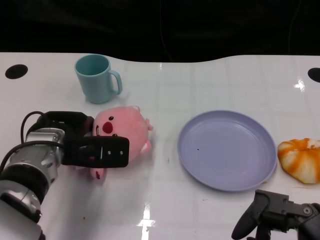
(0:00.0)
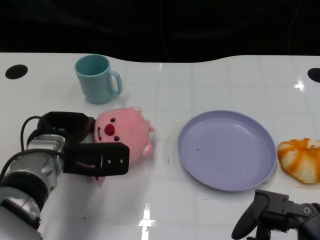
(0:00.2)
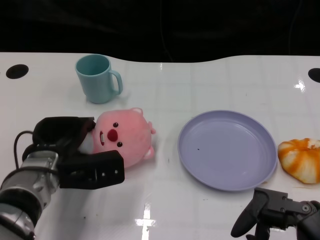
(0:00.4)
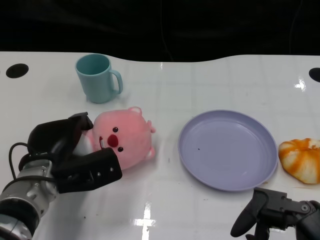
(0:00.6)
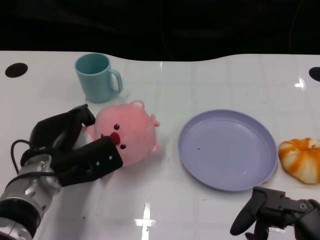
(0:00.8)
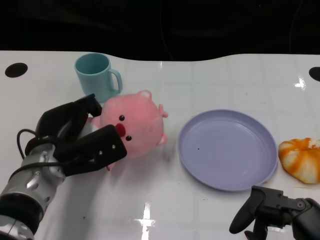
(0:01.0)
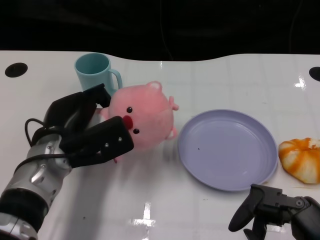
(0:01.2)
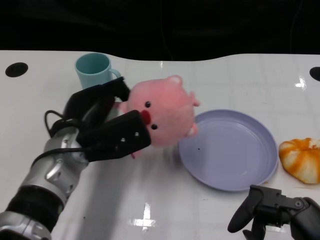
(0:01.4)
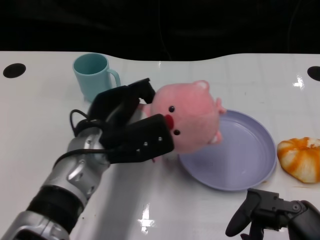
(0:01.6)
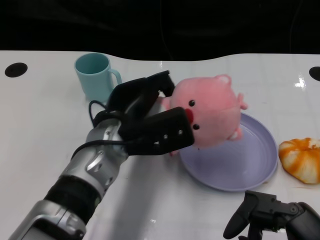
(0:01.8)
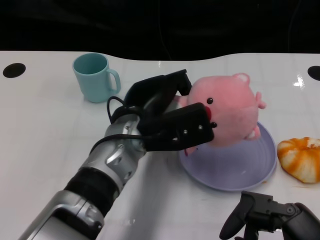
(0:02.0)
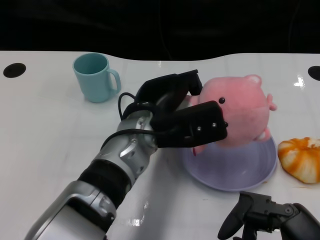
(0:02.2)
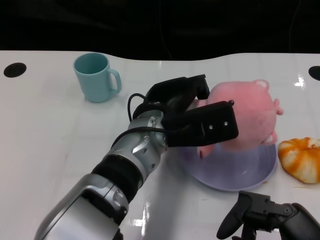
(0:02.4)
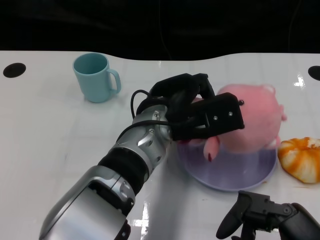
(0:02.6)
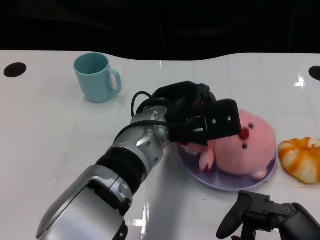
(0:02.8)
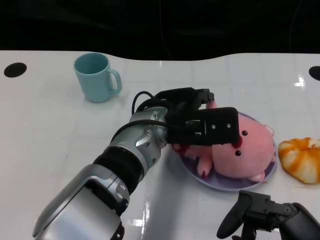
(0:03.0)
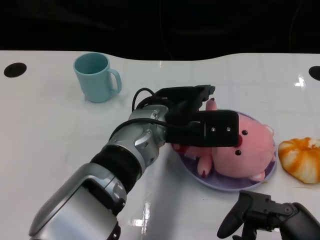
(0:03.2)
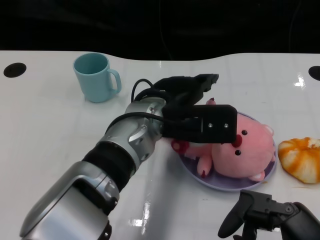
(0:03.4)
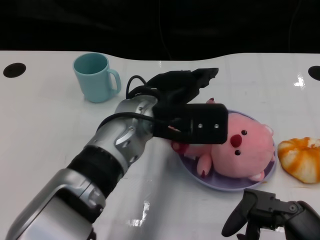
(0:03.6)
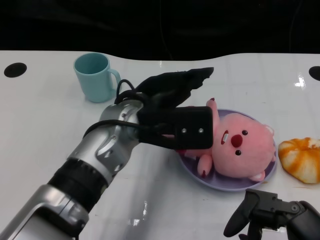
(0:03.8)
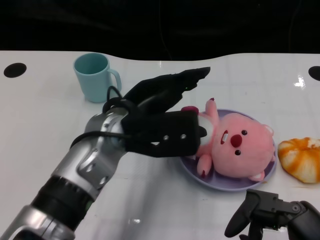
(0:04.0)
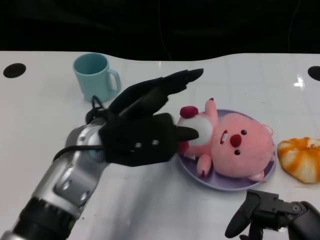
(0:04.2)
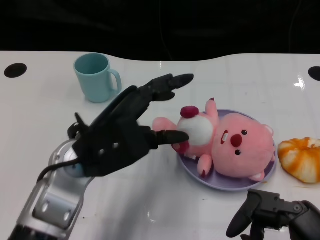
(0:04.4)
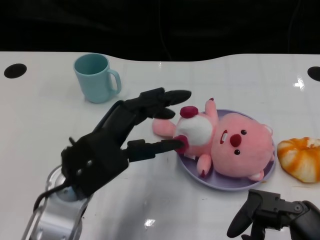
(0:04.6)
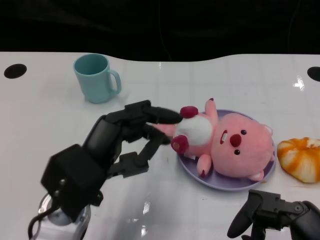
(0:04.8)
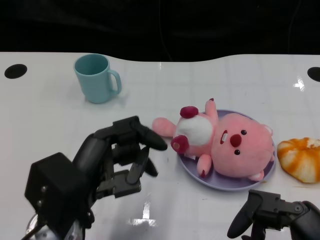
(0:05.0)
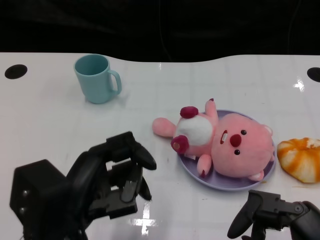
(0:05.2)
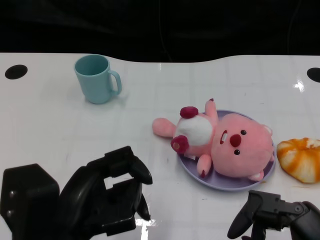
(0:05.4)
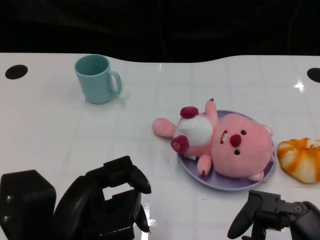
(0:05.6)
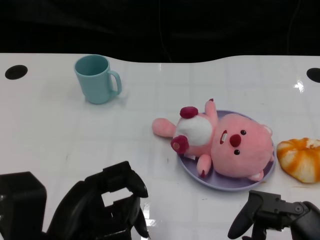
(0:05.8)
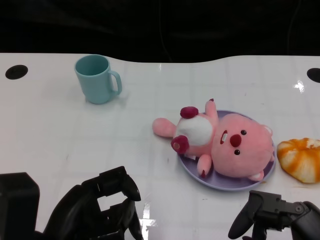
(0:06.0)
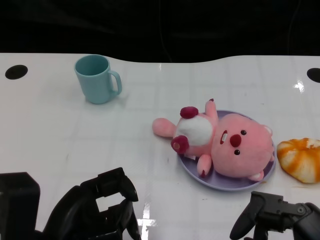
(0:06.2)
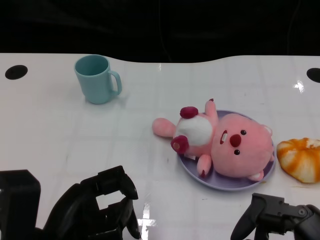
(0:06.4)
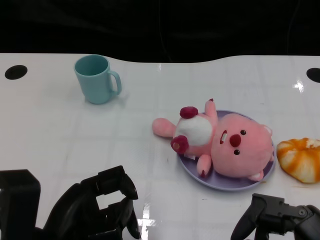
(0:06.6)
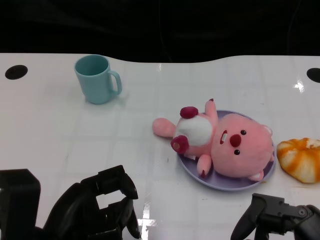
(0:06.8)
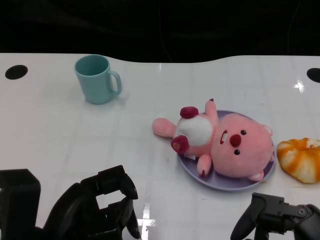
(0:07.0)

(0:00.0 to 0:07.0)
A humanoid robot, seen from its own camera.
Task of the whole recording: Pick up the doll on one side of the plate and place it into the plate.
Step, 0:01.0 - 0:03.4: Place the pink doll into the plate with the left gripper.
0:01.4 - 0:02.8: The left hand shifts about 15 cm to the right.
0:02.8 - 0:04.2: The left hand moves to the left, roughly 10 cm.
0:04.2 - 0:05.6: The left hand is displaced backward and to the left by approximately 15 cm.
0:05.6 - 0:07.0: The hands make only small movements.

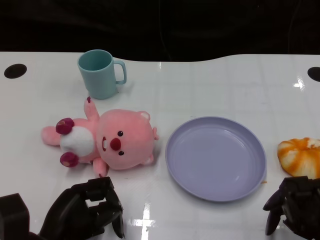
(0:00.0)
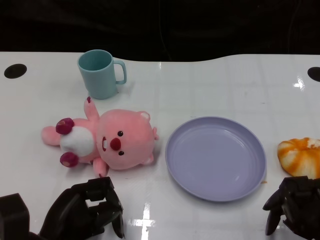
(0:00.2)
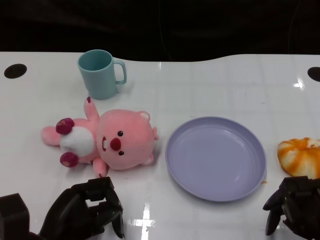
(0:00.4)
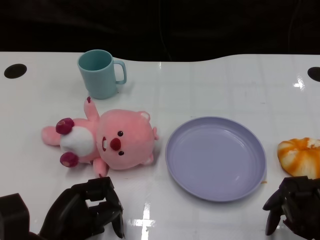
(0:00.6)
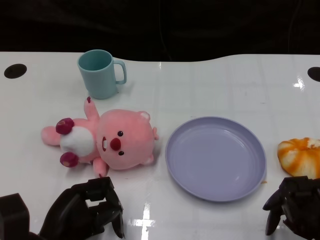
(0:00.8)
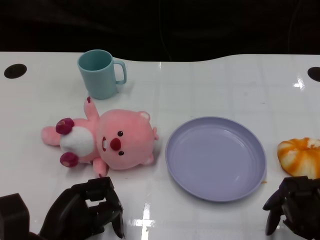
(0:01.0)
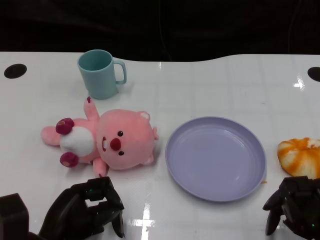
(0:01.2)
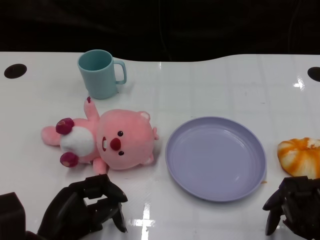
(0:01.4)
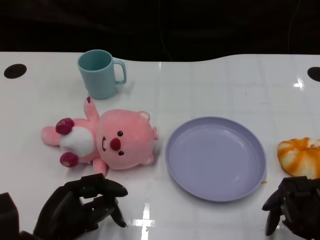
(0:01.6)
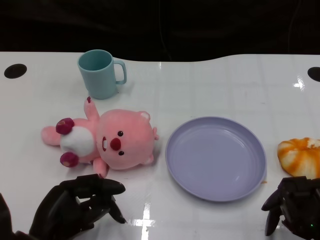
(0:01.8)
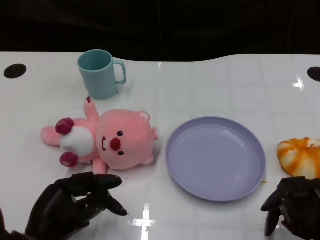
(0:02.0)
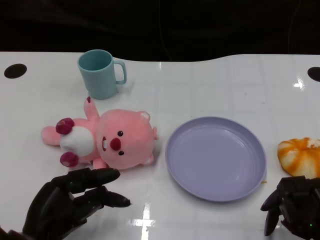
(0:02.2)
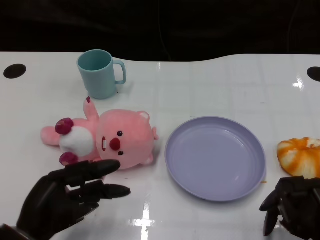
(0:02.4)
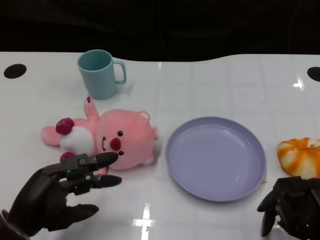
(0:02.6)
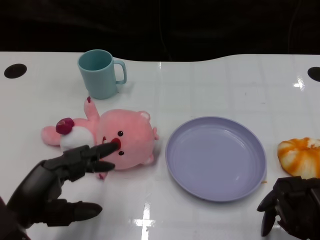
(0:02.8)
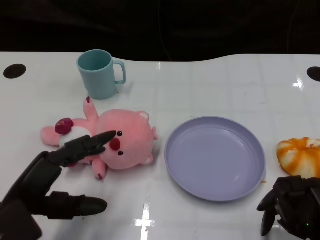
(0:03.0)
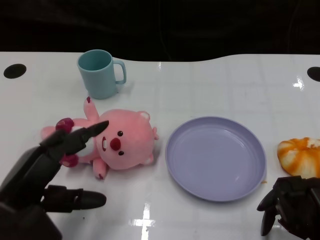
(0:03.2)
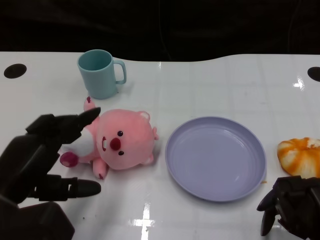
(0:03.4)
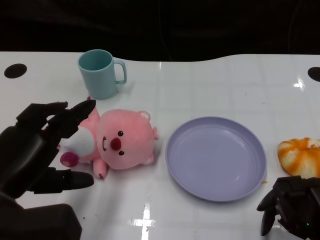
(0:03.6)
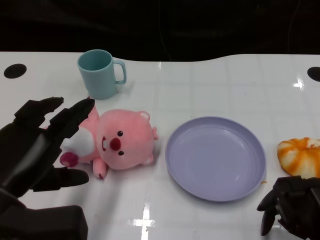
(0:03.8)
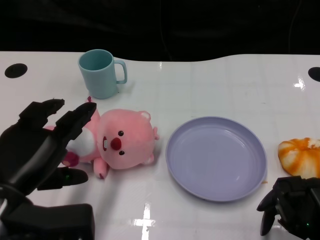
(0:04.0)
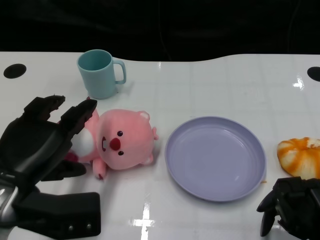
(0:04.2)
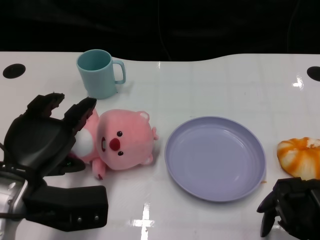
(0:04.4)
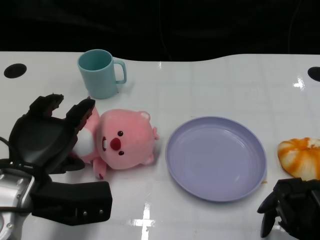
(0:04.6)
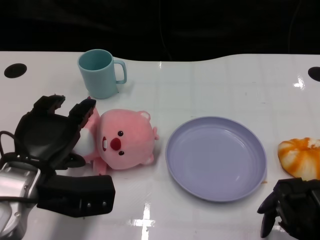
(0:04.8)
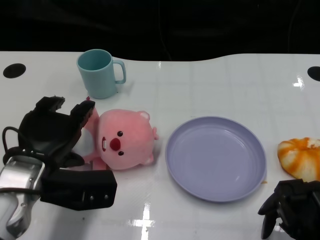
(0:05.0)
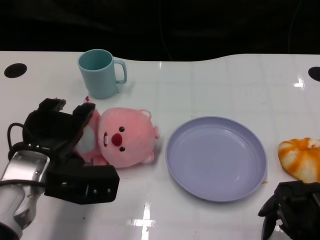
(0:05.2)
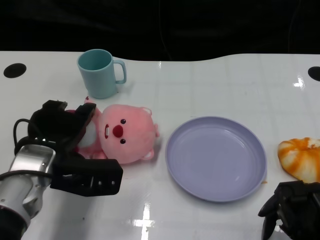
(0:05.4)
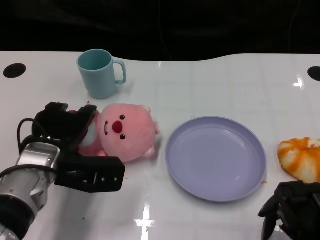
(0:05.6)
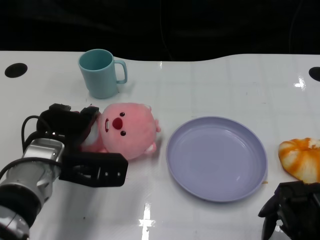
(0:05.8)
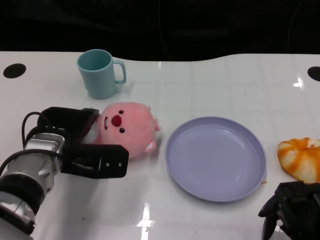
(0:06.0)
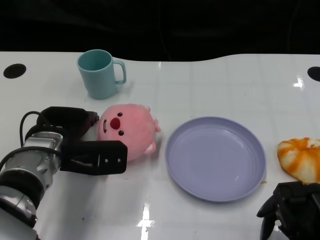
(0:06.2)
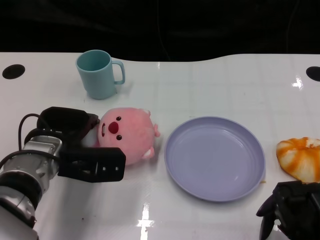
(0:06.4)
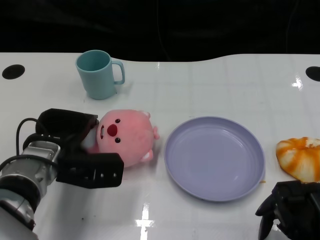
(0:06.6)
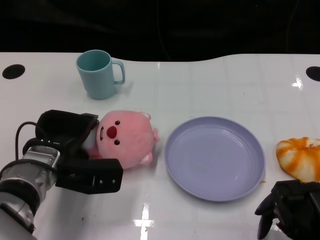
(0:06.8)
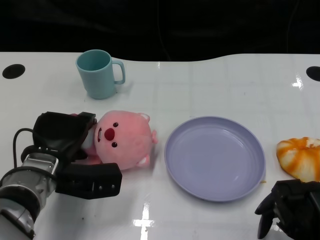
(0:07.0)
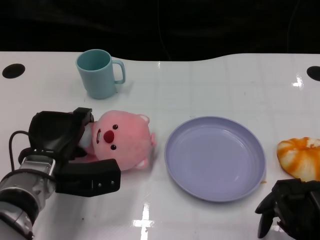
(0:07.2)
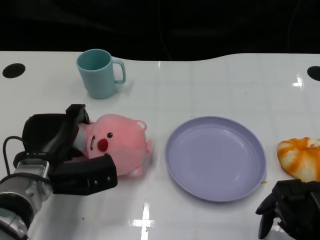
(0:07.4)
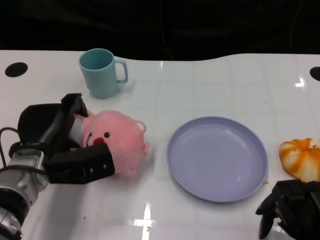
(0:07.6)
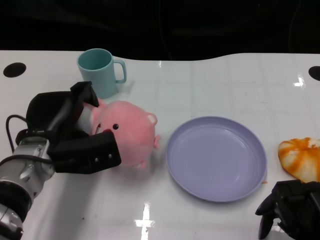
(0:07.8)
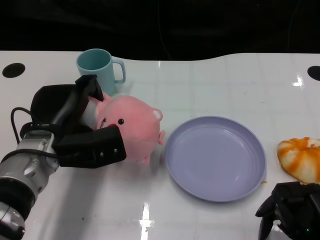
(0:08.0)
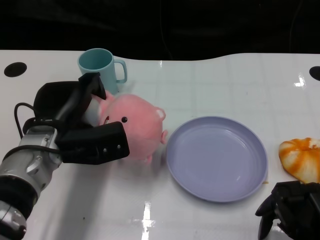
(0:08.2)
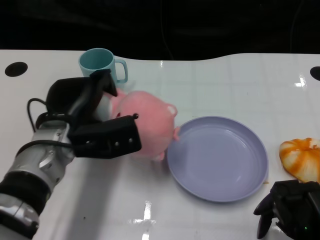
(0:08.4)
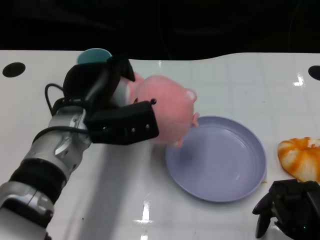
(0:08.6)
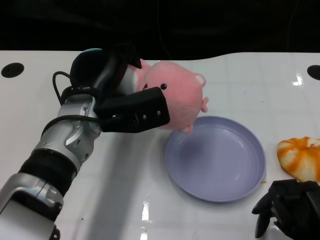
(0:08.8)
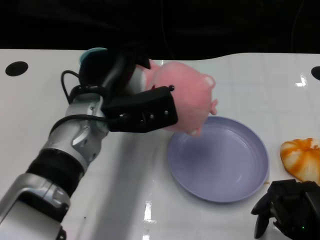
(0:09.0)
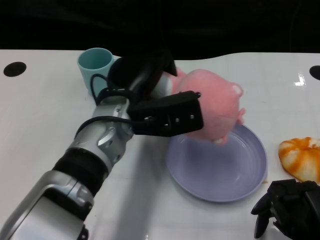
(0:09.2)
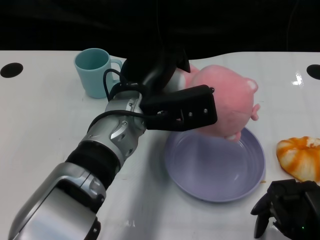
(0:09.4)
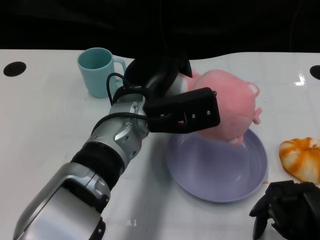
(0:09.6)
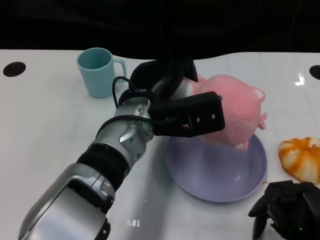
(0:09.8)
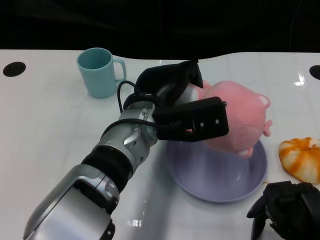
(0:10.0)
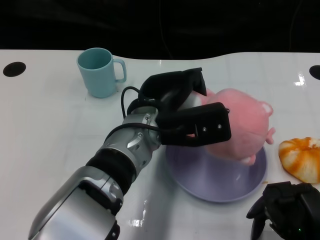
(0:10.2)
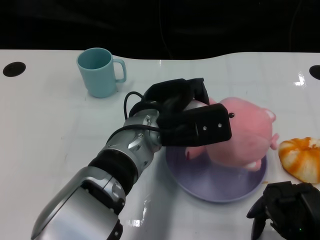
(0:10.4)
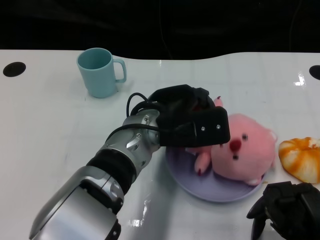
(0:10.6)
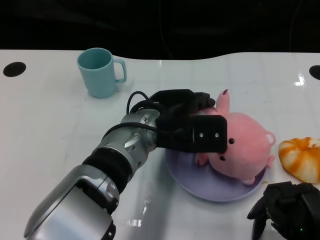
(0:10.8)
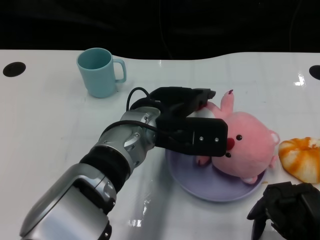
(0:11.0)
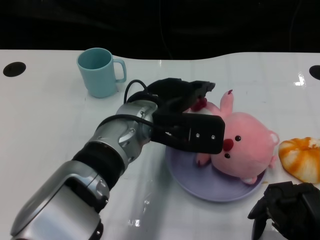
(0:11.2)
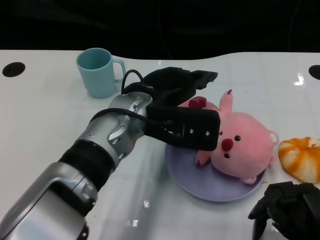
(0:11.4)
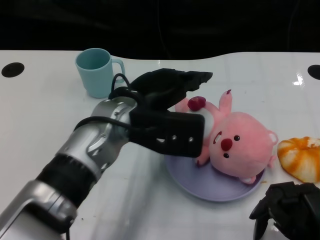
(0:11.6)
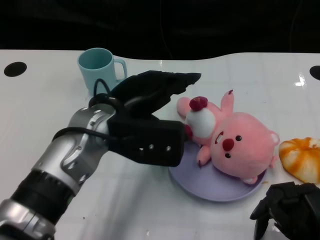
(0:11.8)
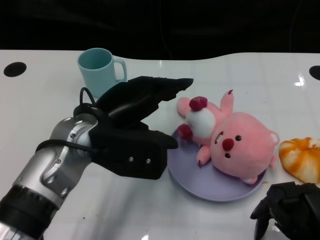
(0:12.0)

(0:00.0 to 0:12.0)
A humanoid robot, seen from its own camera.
Task of the whole recording: Pick up the doll on one side of the plate and place it into the plate.
Step, 0:01.2 - 0:07.6: Grasp the pink doll with the left gripper.
Step, 0:07.8 - 0:11.4: Place the pink doll into the plate with the left gripper.
0:01.6 - 0:03.0: The left hand heads upward, covering approximately 5 cm.
0:03.0 - 0:04.4: The left hand moves some 5 cm.
0:04.4 - 0:06.0: The left hand heads forward, covering some 10 cm.
0:07.6 - 0:09.0: The left hand shifts roughly 15 cm to the right and upward.
0:09.0 - 0:10.4: The left hand moves to the right, approximately 10 cm.
0:10.4 - 0:12.0: The left hand travels to the left by about 10 cm.

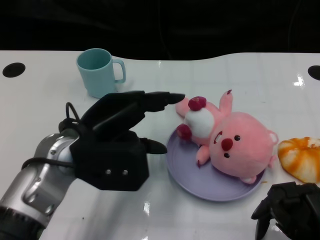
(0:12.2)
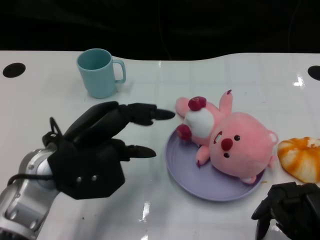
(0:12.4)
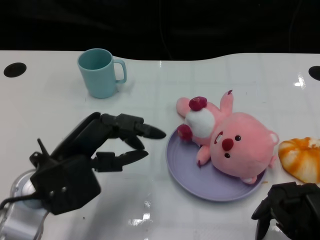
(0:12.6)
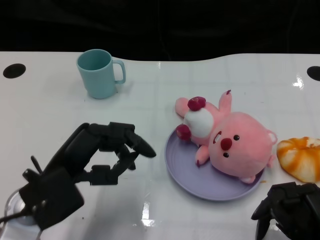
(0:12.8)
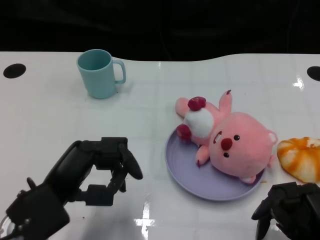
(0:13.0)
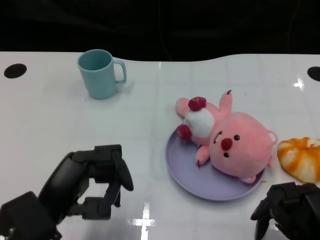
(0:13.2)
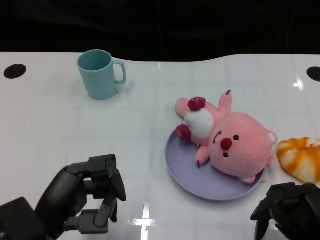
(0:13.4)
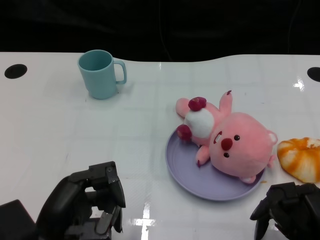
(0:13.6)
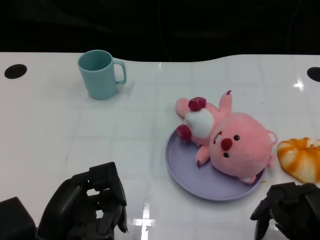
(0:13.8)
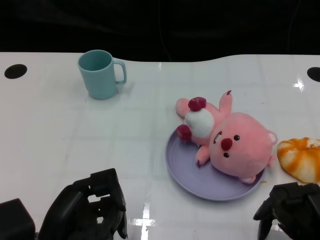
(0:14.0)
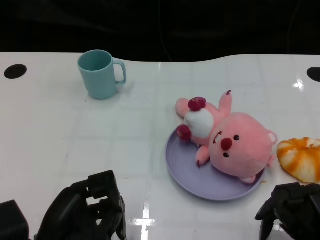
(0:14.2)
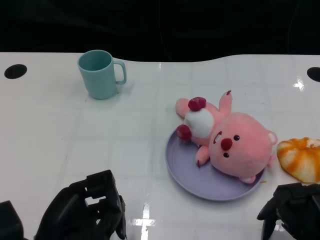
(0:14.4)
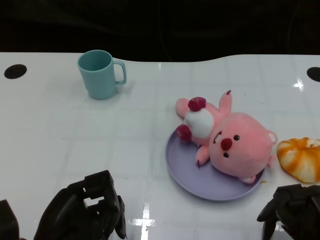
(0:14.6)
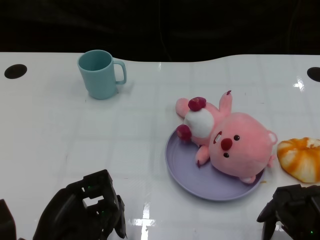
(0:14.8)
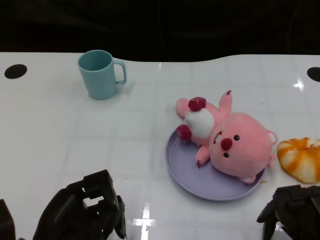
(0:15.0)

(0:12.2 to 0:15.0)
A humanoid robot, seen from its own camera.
Task of the whole recording: Pick up the doll on one side of the plate and place it into the plate.
0:12.2 - 0:13.6: The left hand heads backward, downward and to the left, covering roughly 15 cm.
0:13.6 - 0:15.0: There are only small adjustments of the hands.
